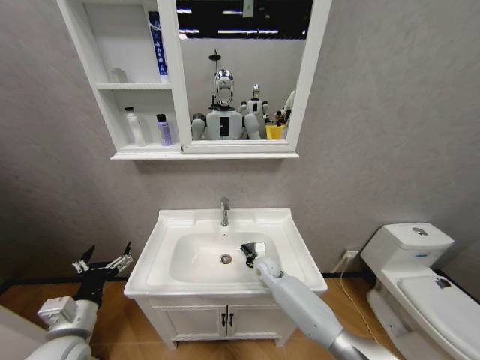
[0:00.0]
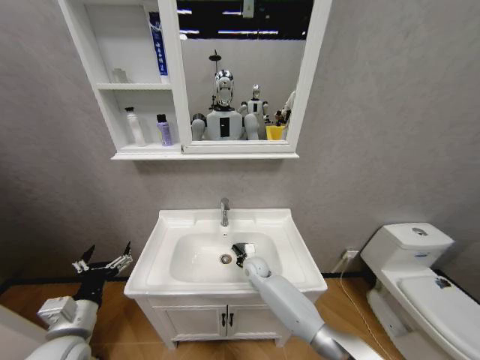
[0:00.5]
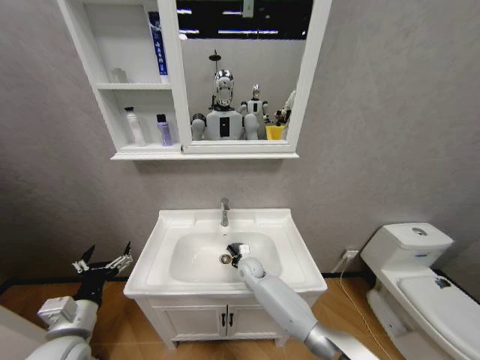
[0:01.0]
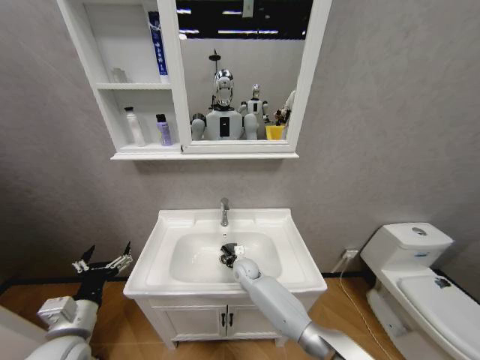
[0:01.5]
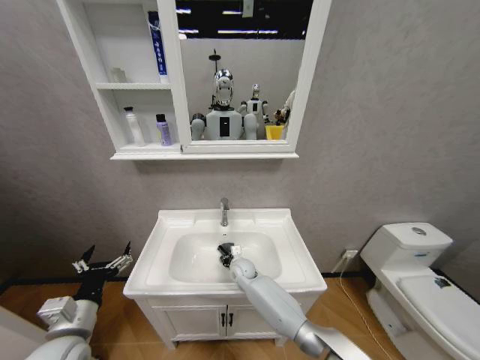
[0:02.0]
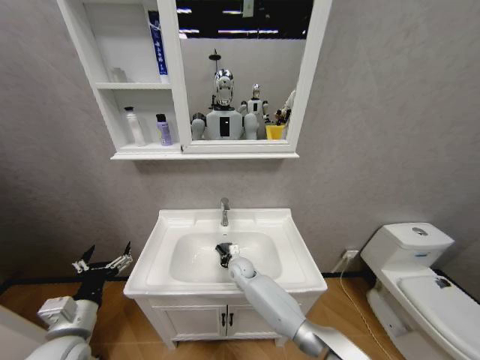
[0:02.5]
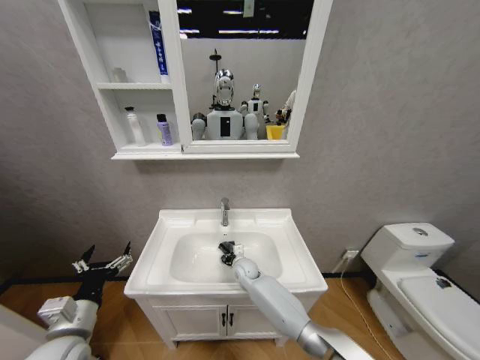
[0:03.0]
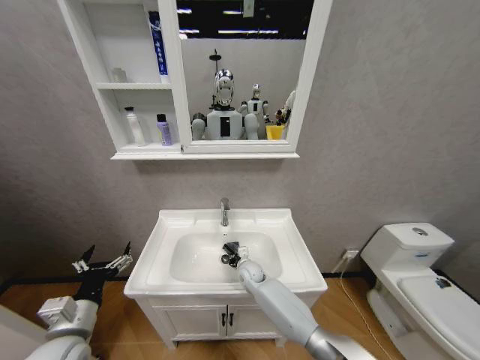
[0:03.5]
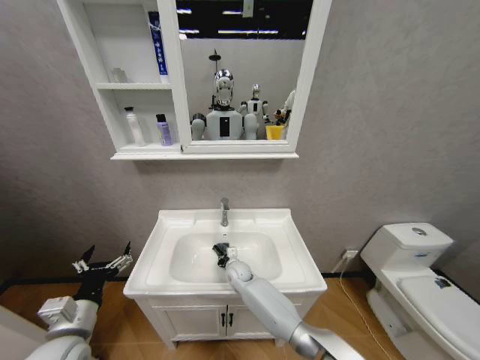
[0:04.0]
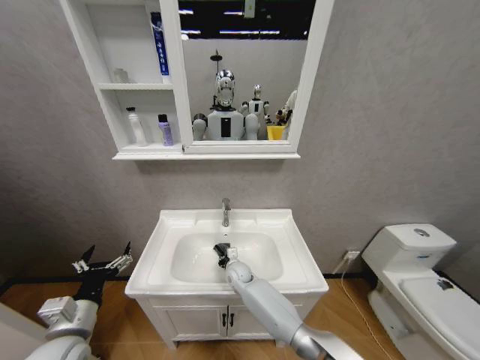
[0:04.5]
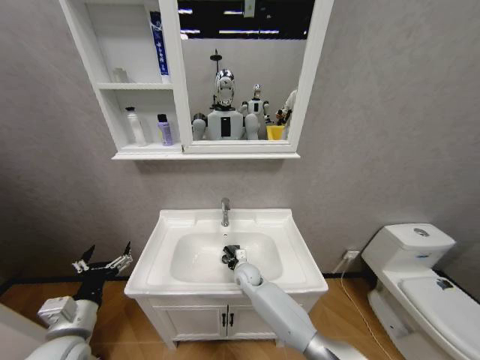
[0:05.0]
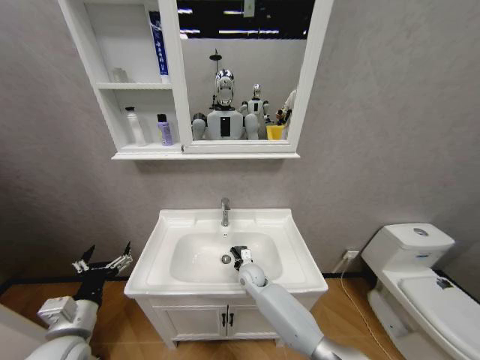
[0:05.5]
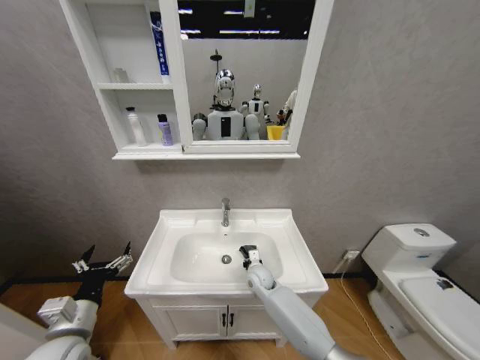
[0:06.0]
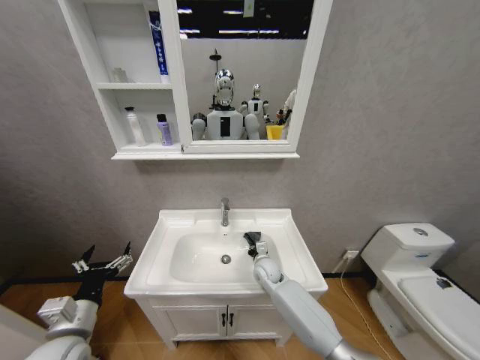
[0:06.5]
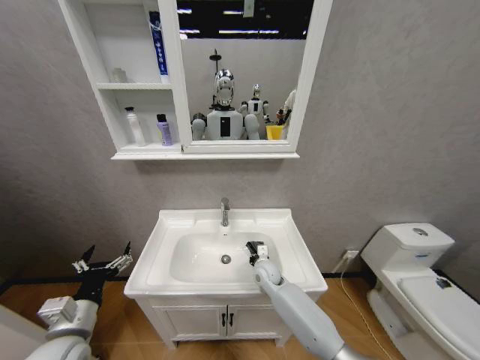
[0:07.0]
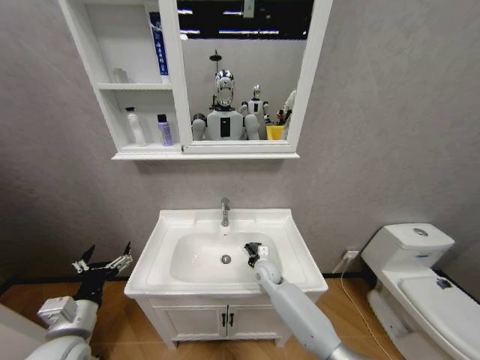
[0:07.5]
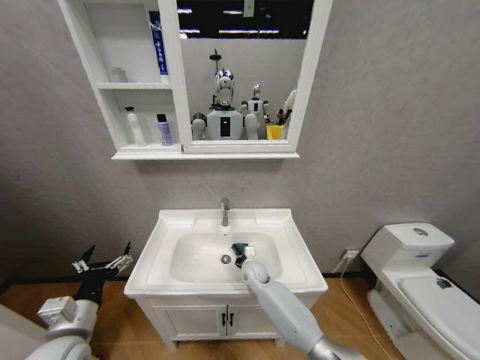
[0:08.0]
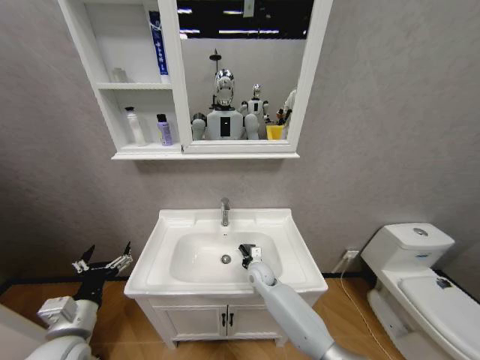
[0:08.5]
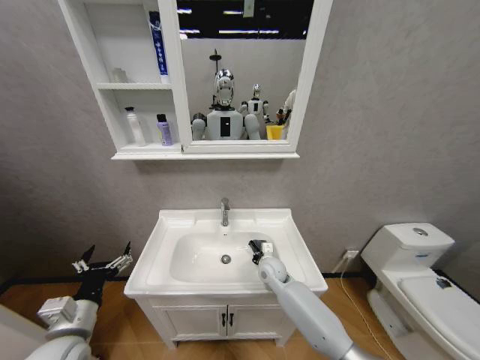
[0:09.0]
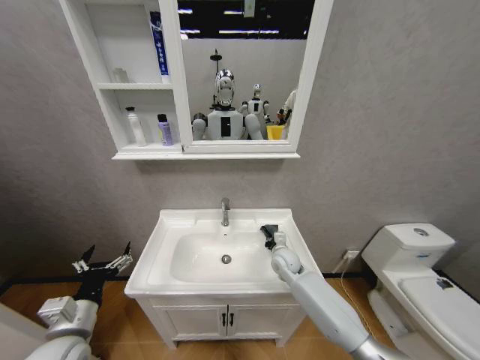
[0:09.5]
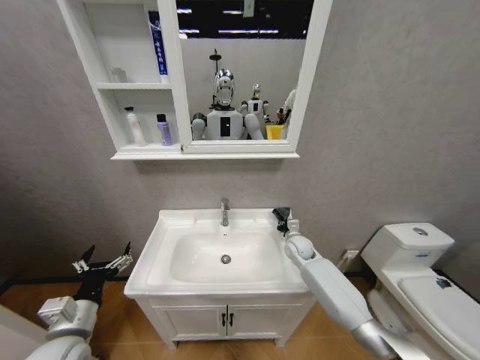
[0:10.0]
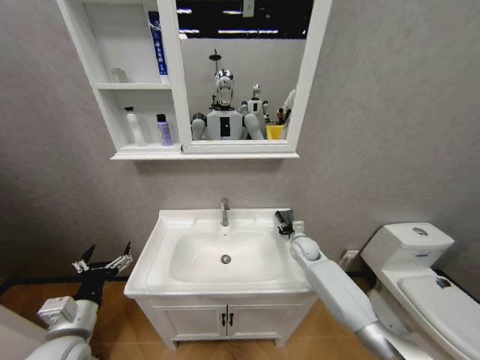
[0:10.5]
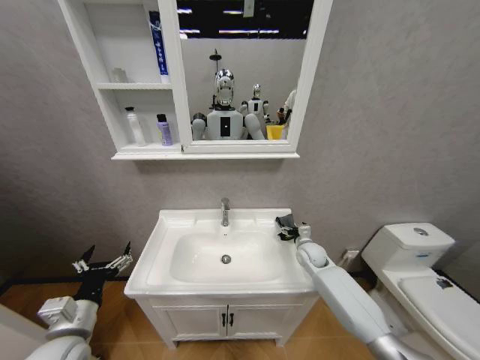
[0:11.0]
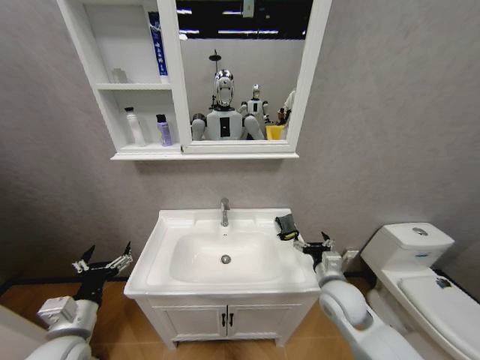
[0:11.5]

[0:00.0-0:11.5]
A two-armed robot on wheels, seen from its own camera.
Task of the whole recording: Move facial cleanser and shampoo from washbasin to cabinet, then wipe washbasin with towel.
0:00.0 to 0:02.0: The right gripper shifts approximately 10 cm to the left.
0:02.0 to 0:04.0: The grippers move only a little.
0:04.0 to 0:06.0: The right gripper goes roughly 5 cm to the right.
0:06.0 to 0:07.5: The grippers move only a little.
0:07.5 to 0:09.5: The right gripper is displaced to the right and upward by some 10 cm.
0:09.5 to 0:11.5: The right gripper heads backward, to the right and upward, covering roughly 20 cm, and opens up.

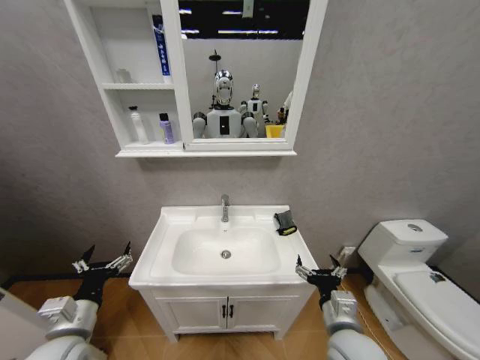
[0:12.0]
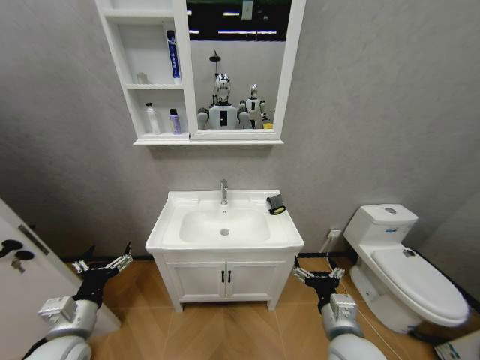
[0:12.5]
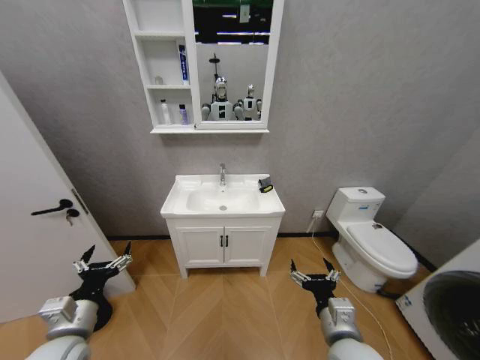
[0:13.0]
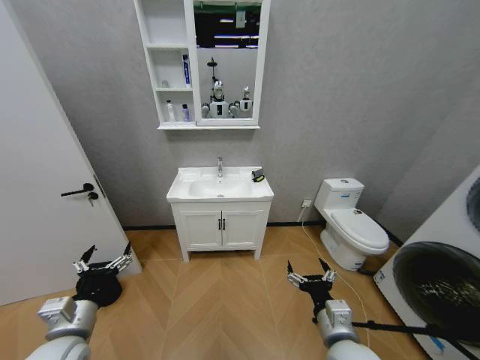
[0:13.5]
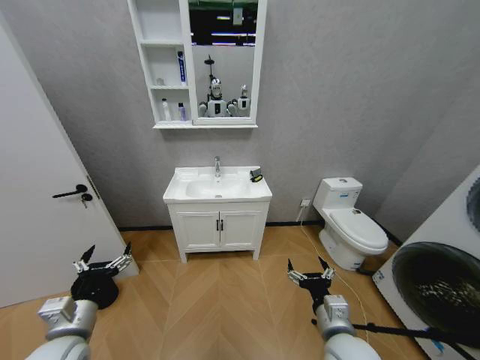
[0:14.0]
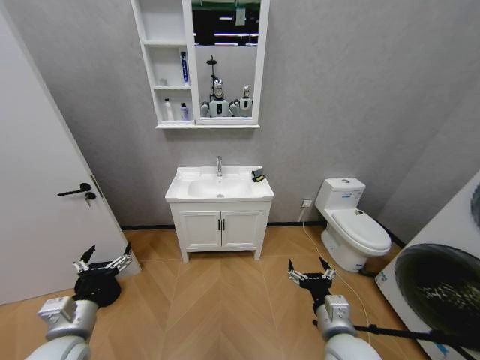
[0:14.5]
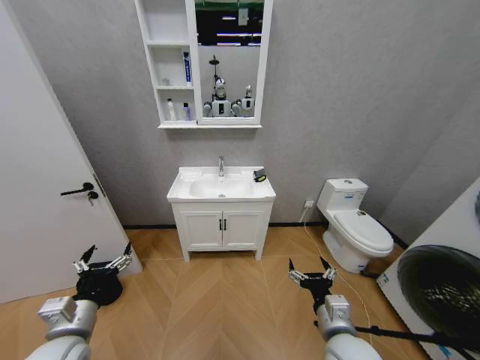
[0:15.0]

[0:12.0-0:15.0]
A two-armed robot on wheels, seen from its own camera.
Task of the whole recording: Move facial cleanser and shampoo from washbasin to cabinet, then wipe washbasin with towel.
0:13.5 to 0:15.0: There are only small adjustments of the grippers.
